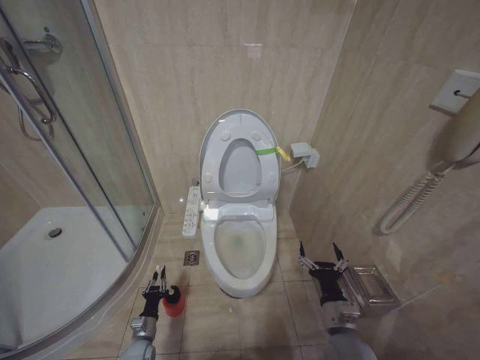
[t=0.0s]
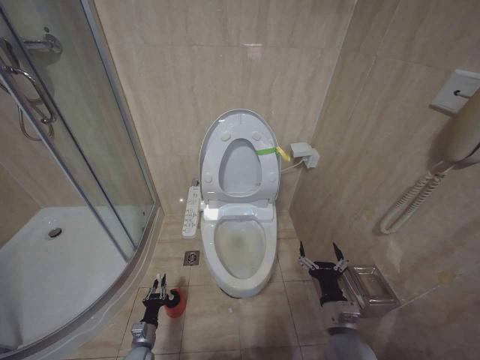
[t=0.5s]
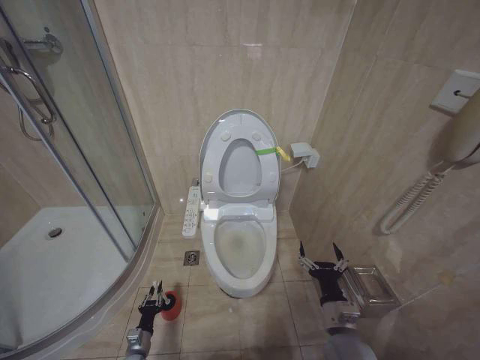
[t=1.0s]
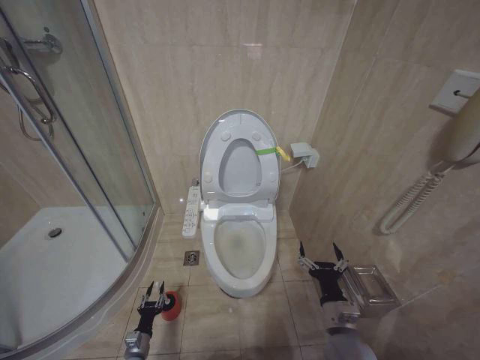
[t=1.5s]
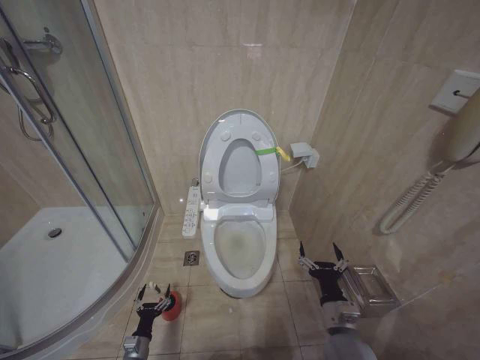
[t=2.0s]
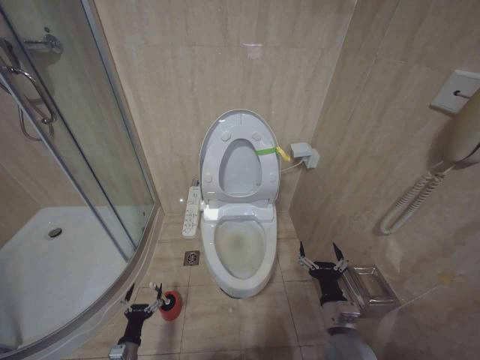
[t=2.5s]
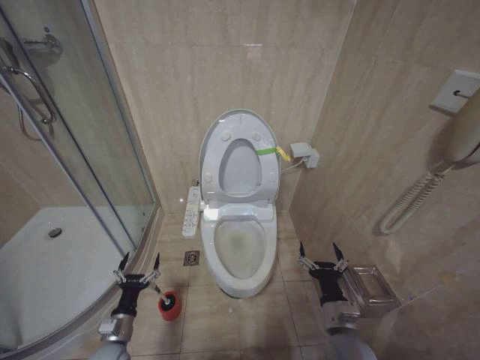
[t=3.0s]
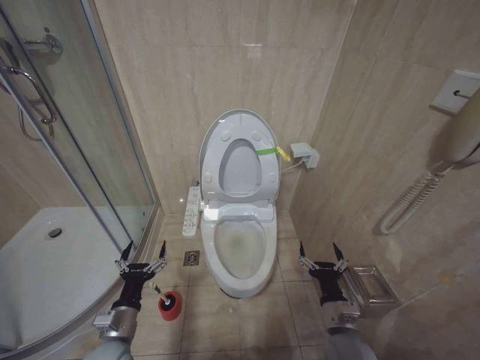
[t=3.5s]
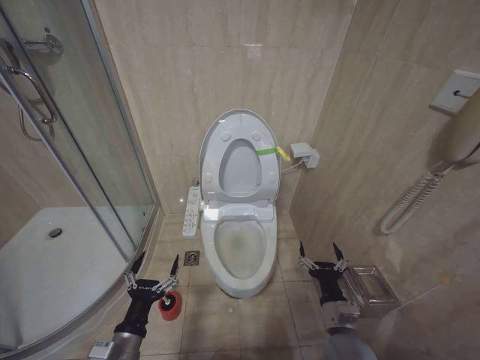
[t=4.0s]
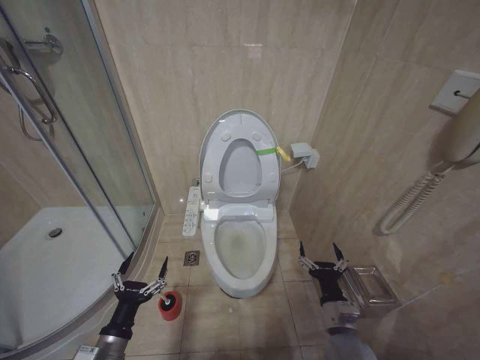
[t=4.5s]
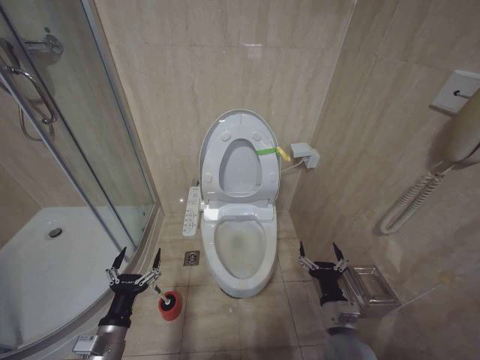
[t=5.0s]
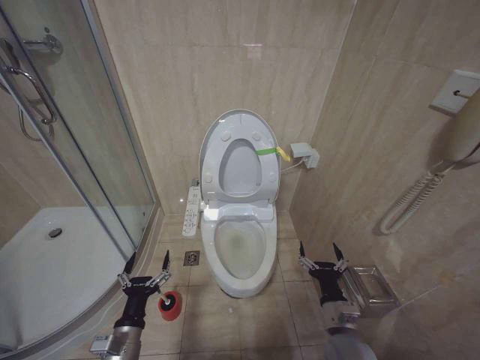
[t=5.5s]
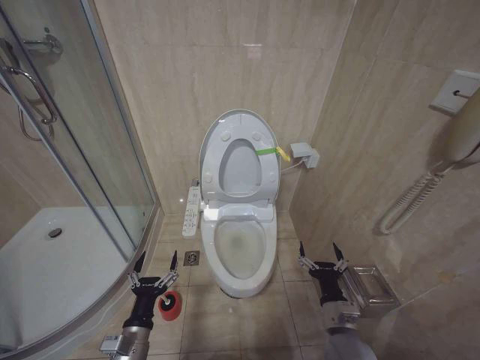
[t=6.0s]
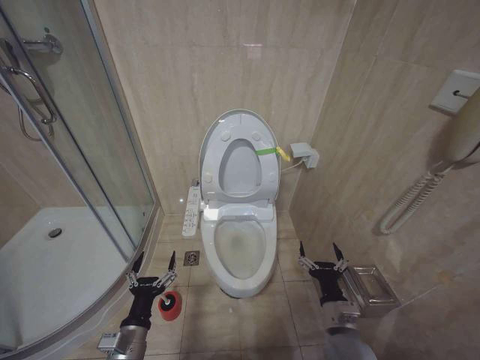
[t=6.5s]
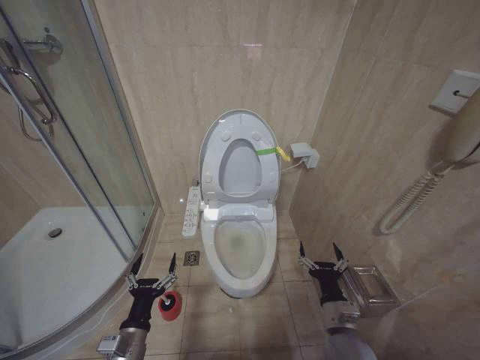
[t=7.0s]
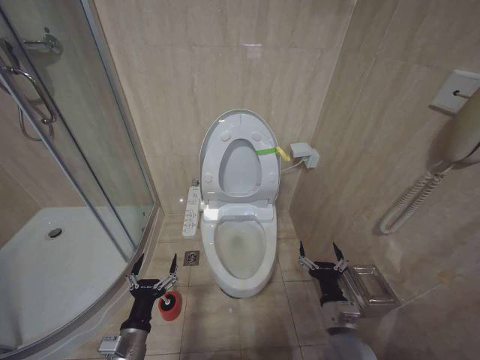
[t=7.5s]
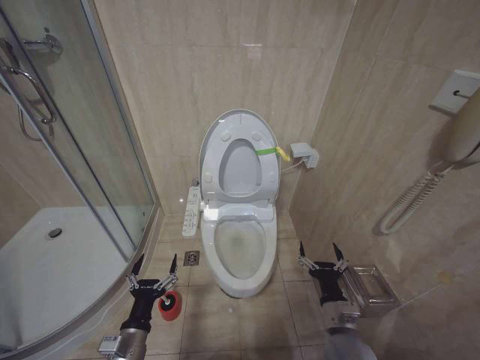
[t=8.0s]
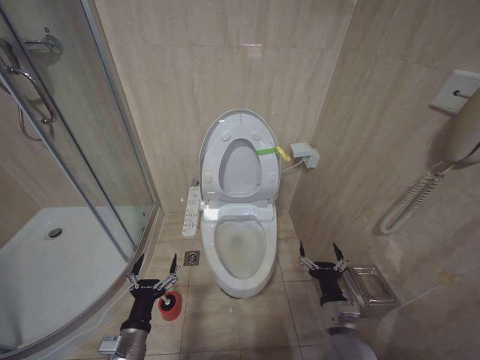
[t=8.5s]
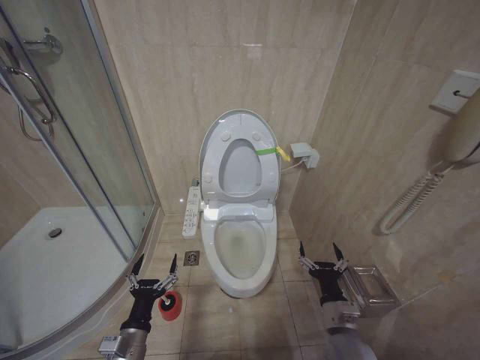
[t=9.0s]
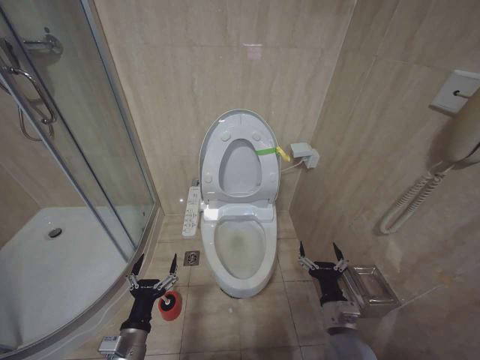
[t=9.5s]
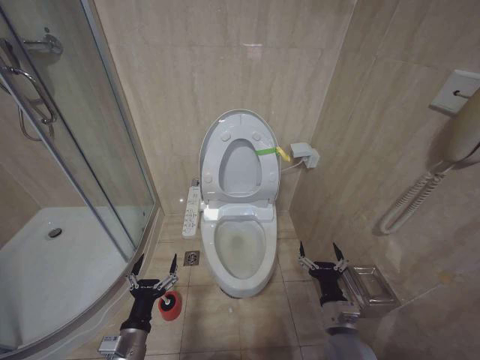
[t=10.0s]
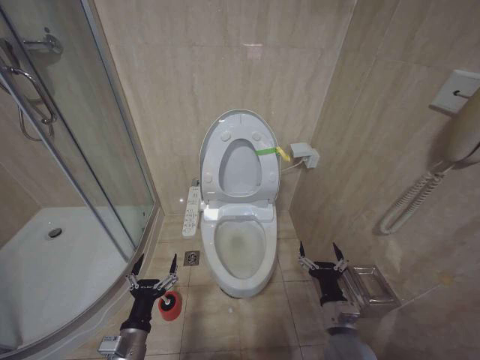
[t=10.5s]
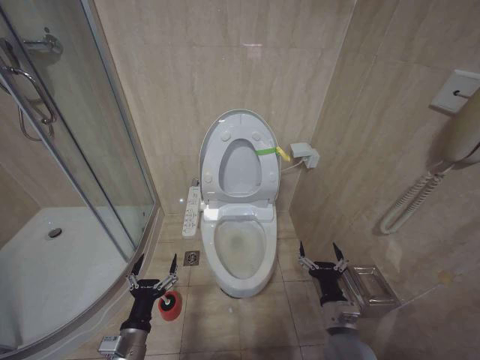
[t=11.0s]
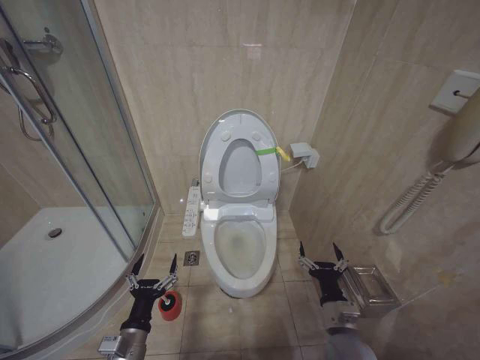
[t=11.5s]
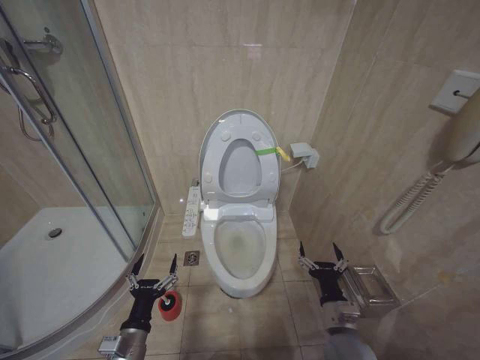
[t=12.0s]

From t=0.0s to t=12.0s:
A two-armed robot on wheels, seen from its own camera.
Task of the whole recording: Open the toilet lid, clean the toilet bowl with a toilet brush, close the toilet lid, and flush.
From t=0.0s to t=2.0s: The left gripper changes place by approximately 5 cm, and opens.
From t=2.0s to t=4.0s: The left gripper goes some 30 cm upward.
From t=4.0s to t=6.0s: There are only small adjustments of the grippers.
From t=6.0s to t=12.0s: Both grippers stay about where they are.

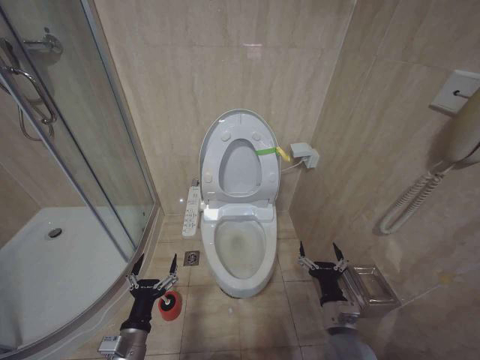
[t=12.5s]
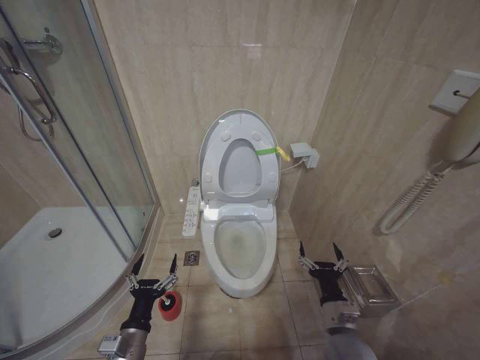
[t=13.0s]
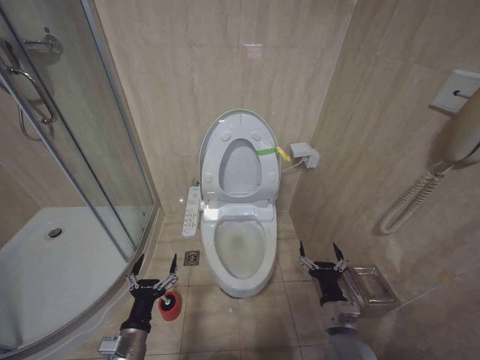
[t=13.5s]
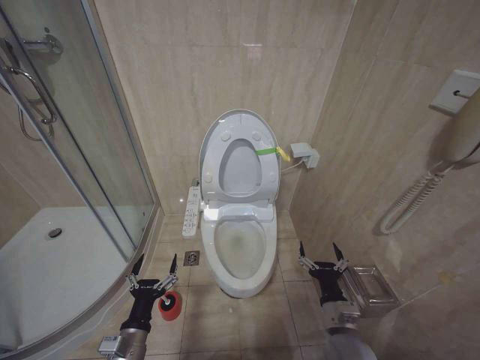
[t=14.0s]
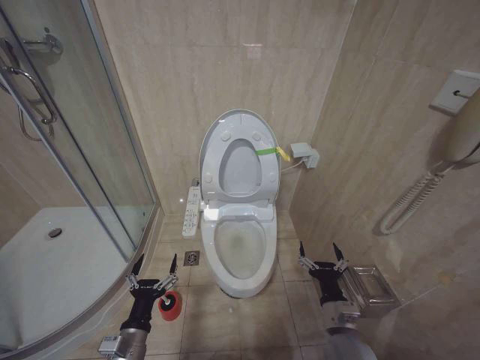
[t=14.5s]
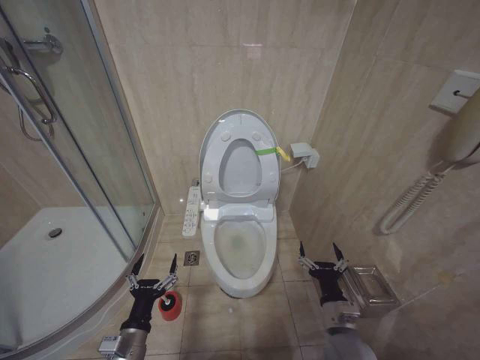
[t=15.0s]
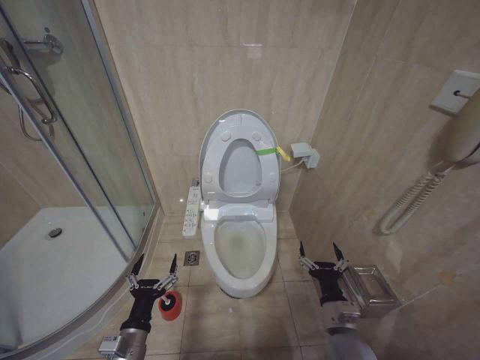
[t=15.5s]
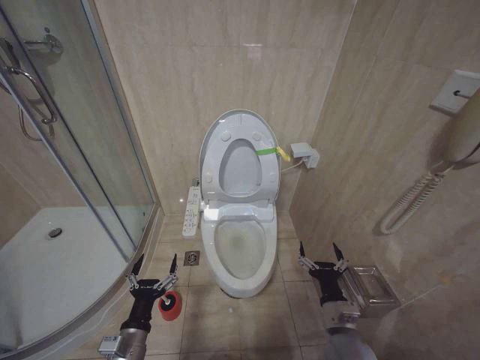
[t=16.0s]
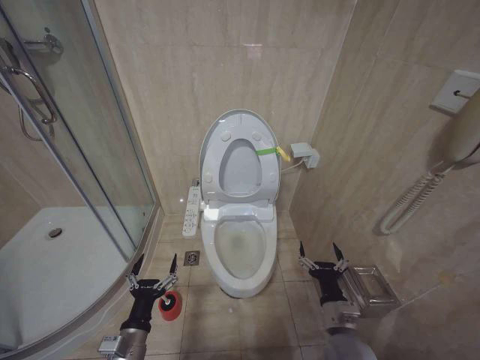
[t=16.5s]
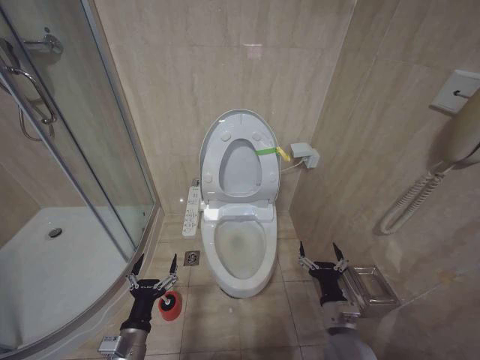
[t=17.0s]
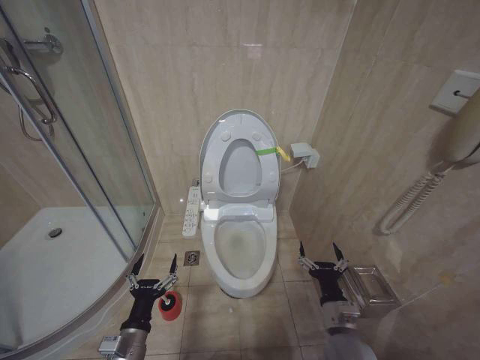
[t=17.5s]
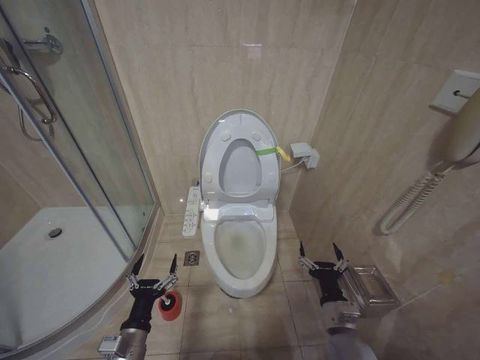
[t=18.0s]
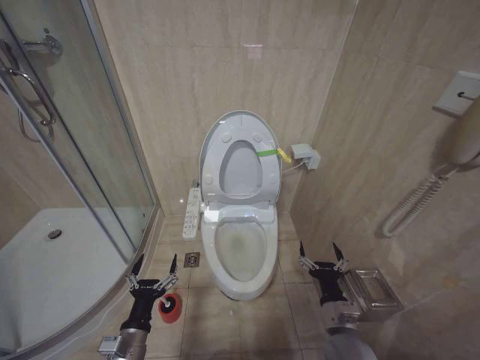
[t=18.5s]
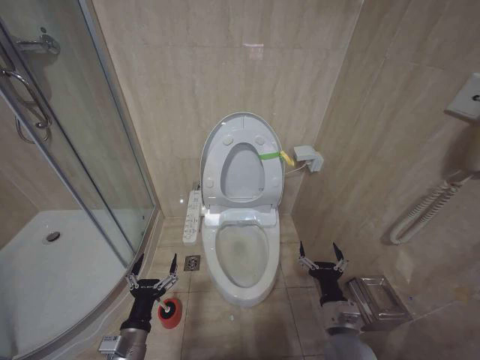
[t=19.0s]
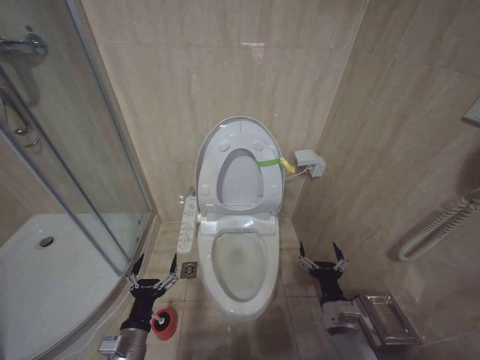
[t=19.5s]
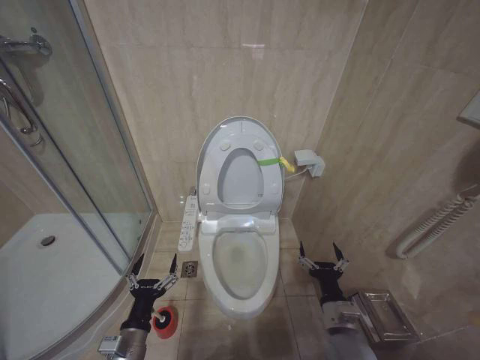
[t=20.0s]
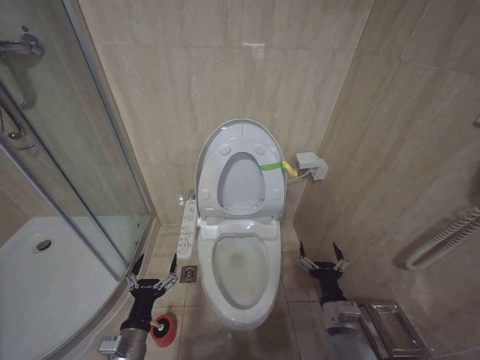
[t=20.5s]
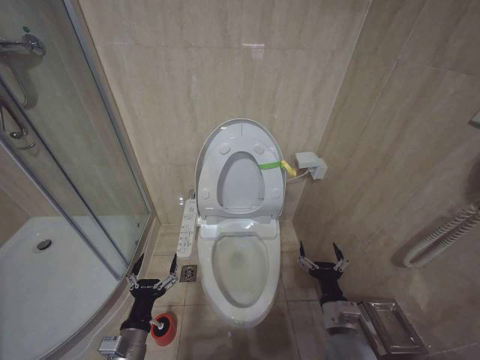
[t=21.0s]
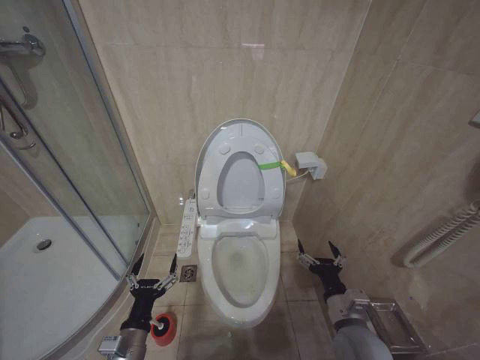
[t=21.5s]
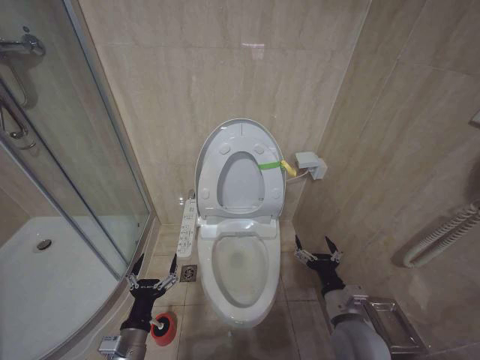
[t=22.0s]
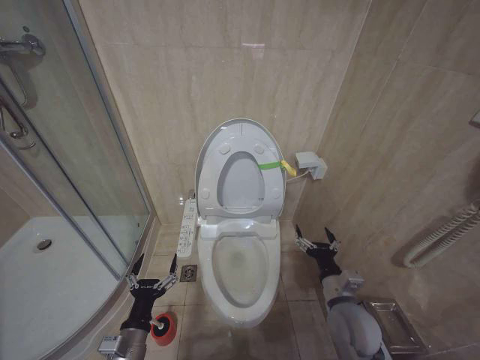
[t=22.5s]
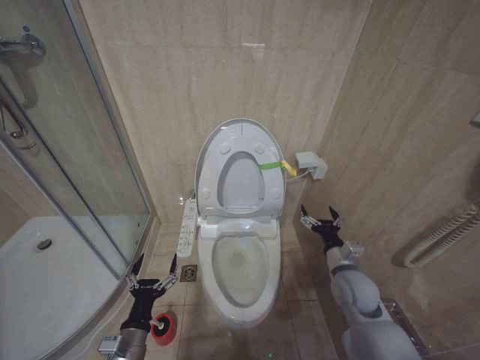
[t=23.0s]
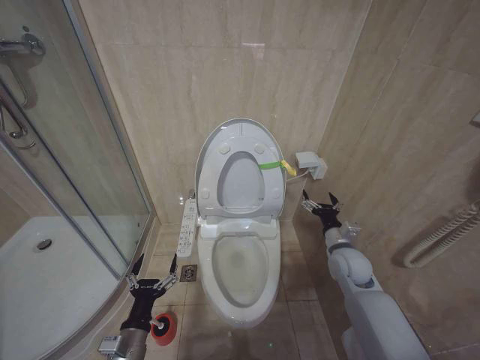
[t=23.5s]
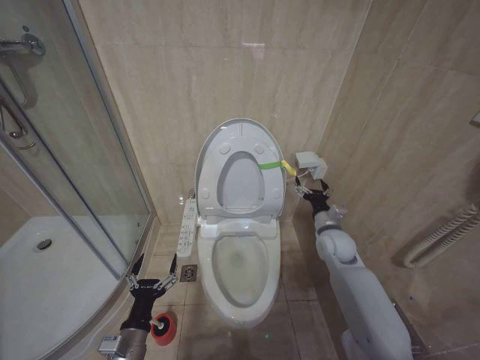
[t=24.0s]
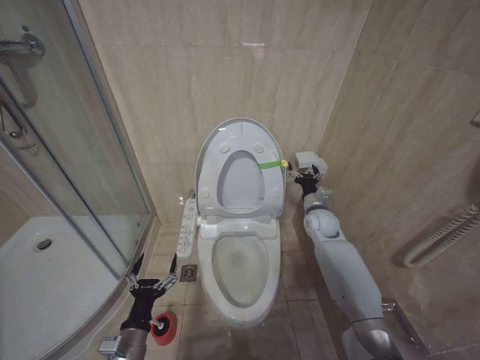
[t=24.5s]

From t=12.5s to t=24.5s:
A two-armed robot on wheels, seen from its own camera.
Task of the whole recording: Open the toilet lid, clean the toilet bowl with a toilet brush, close the toilet lid, and flush.
From t=12.5s to t=20.5s: Both grippers stay put.
From t=20.5s to t=22.5s: The right gripper moves roughly 5 cm.
From t=22.5s to t=24.5s: The right gripper moves forward, some 25 cm.

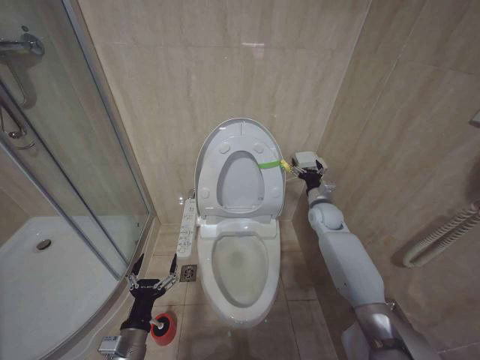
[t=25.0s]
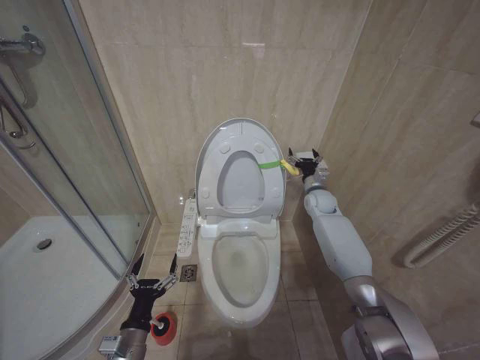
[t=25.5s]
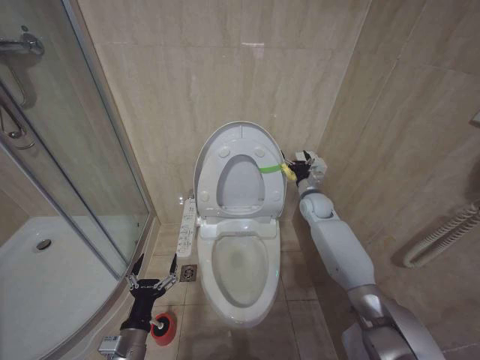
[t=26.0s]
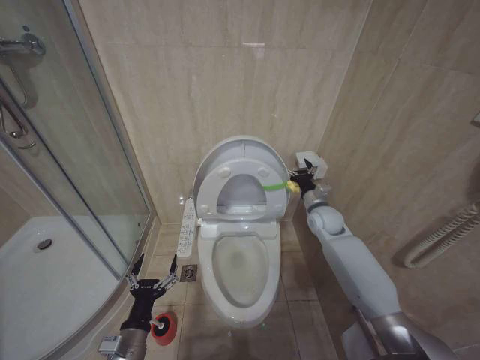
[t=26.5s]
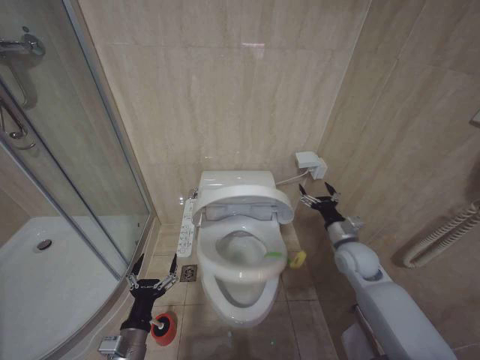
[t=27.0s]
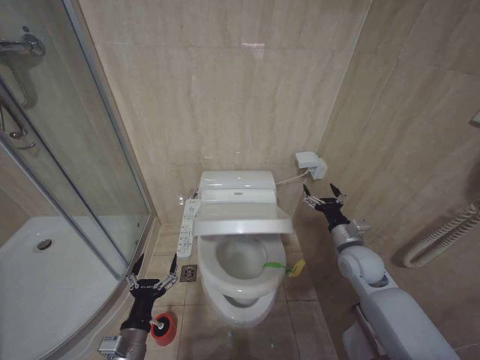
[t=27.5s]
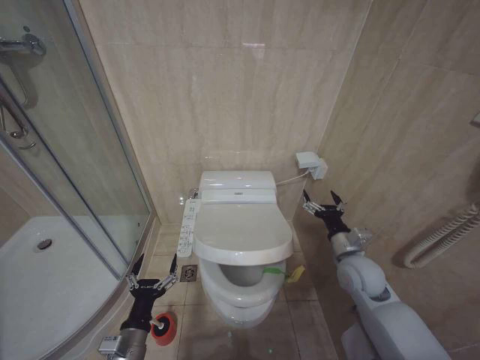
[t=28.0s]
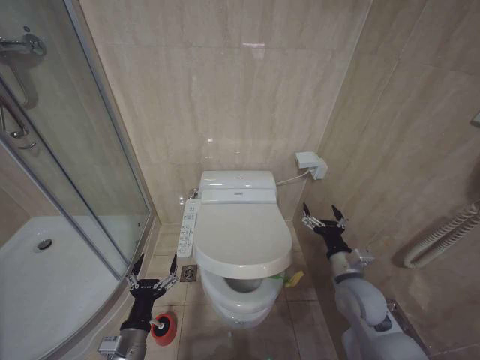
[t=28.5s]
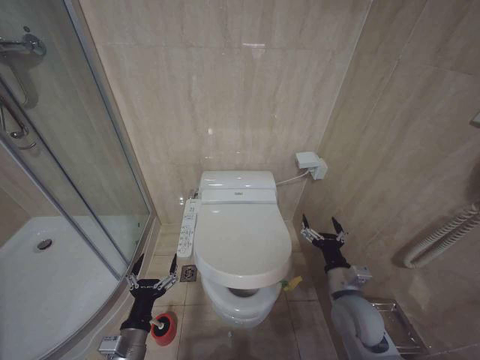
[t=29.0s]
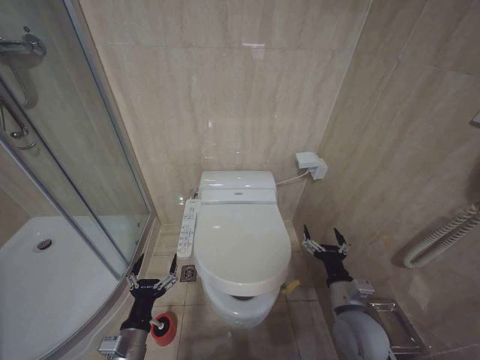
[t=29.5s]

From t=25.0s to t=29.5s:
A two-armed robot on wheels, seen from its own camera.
Task of the whole recording: Open the toilet lid, clean the toilet bowl with a toilet brush, close the toilet lid, and flush.
From t=25.0s to t=27.0s: The right gripper heads backward, covering about 10 cm.
From t=27.0s to t=29.5s: The right gripper goes about 15 cm backward.
